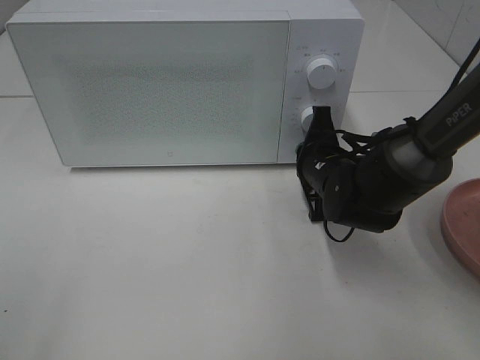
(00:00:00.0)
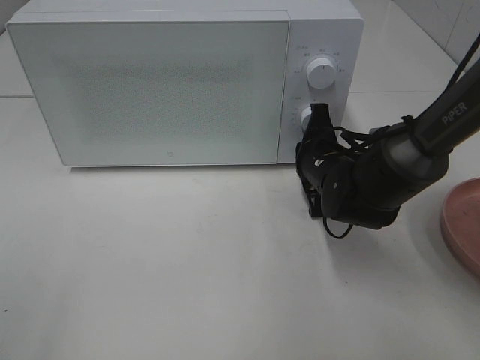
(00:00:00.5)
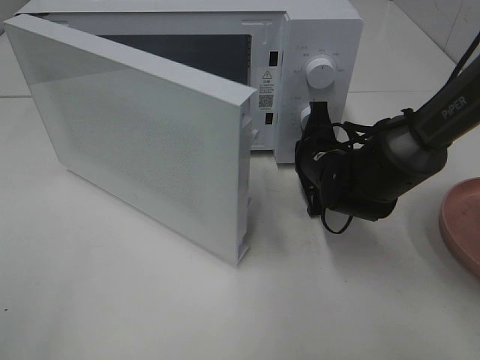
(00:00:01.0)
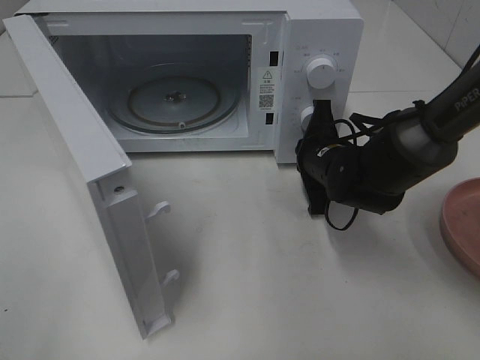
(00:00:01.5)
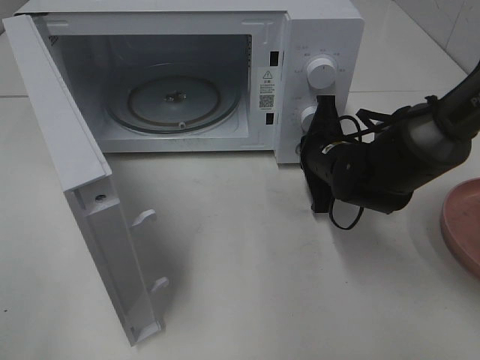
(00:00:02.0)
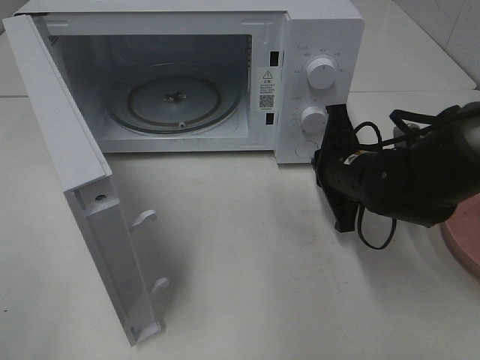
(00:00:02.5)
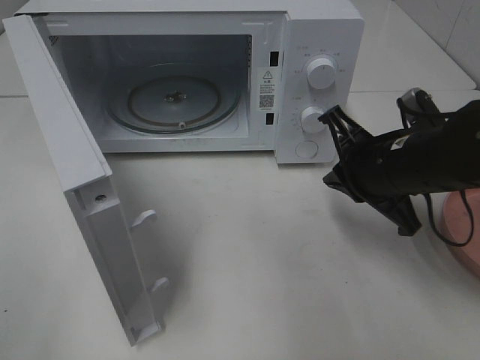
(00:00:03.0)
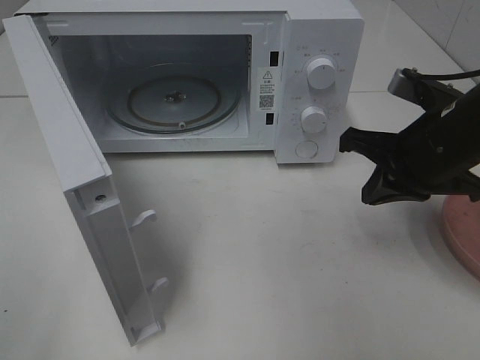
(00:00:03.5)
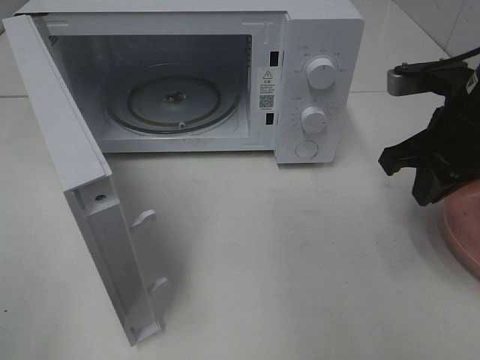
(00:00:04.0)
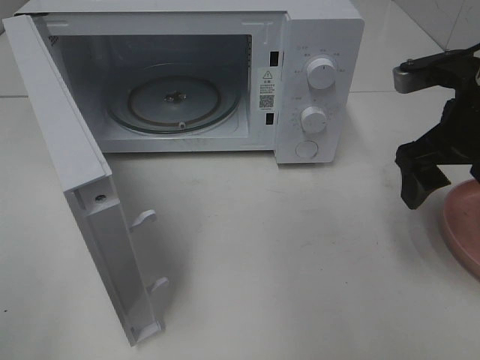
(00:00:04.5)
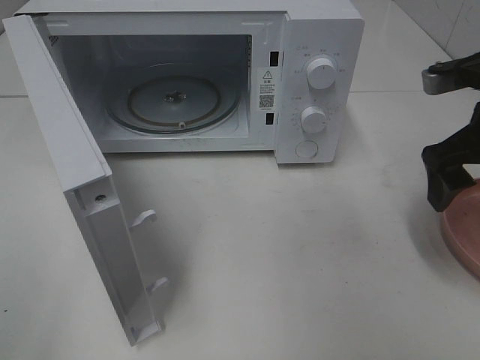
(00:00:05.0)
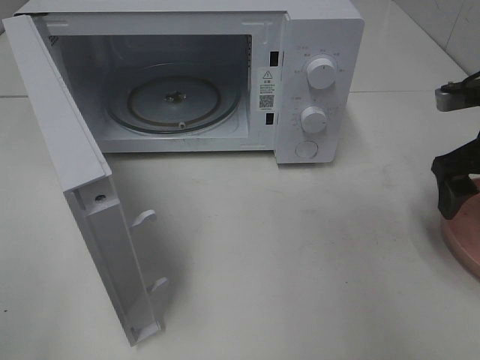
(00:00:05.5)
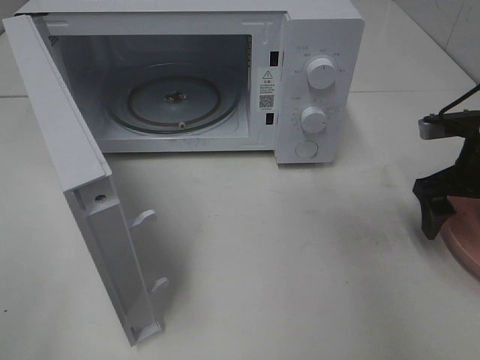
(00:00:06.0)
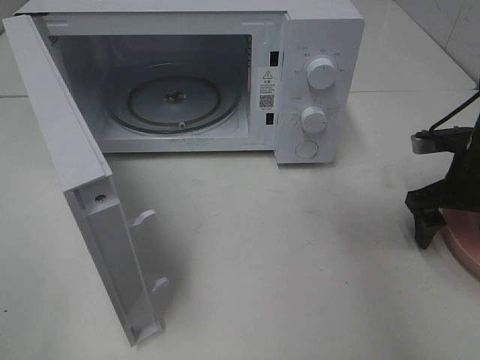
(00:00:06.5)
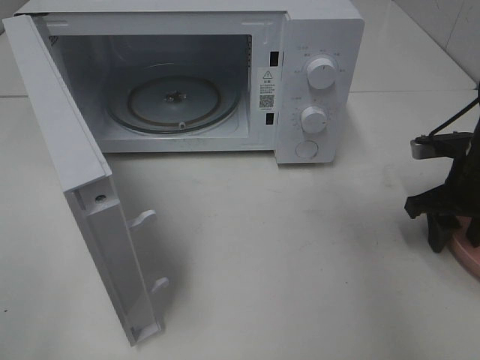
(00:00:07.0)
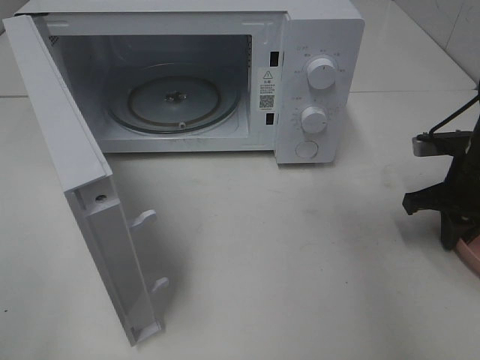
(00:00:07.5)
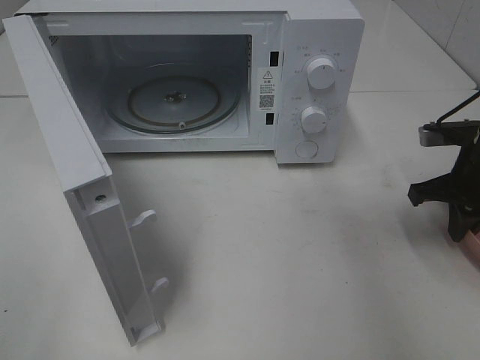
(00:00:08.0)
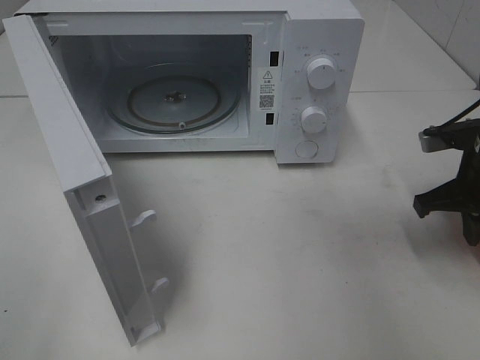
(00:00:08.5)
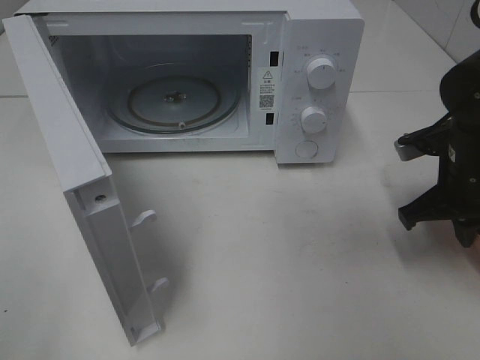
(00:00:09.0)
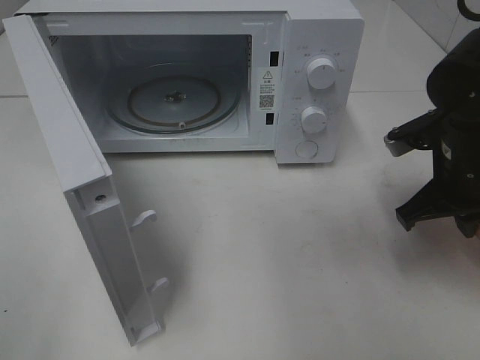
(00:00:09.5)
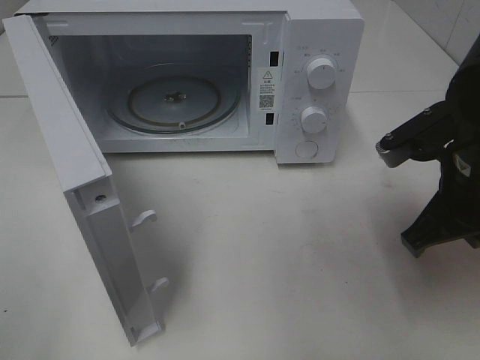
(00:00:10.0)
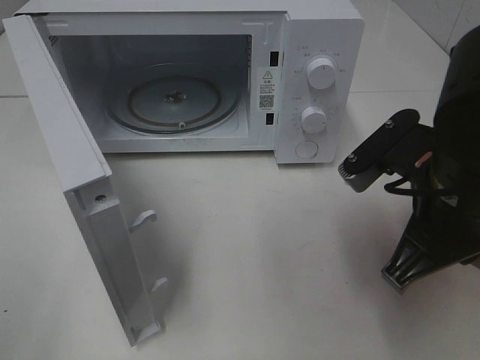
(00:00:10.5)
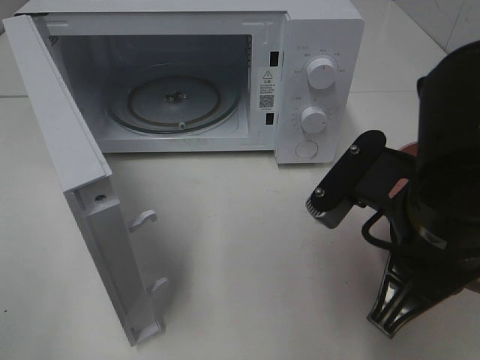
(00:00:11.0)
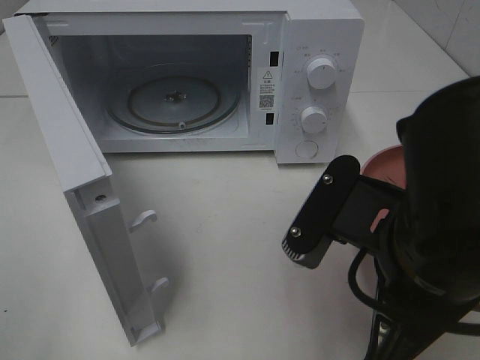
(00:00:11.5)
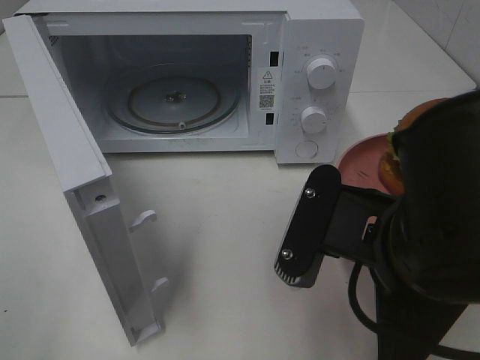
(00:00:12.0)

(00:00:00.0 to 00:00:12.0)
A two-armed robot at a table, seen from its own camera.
Task of the whole recording: Heat the burger.
Step, 00:00:00.0 - 00:00:02.5: Right hand: press the switch.
Step, 00:00:03.0 - 00:00:08.5: Right hand: grab the plate with the hamburger.
00:00:02.0 - 00:00:04.0: The right gripper is displaced upward, to the right and backward by about 15 cm.
00:00:04.0 - 00:00:06.0: The right gripper goes approximately 10 cm downward and to the right, and opens.
00:00:06.0 - 00:00:08.0: The right gripper closes its fingers.
00:00:08.0 - 00:00:10.0: The right gripper is displaced to the left, backward and upward by roughly 15 cm.
00:00:10.0 - 00:00:12.0: The right gripper heads backward and to the left, covering about 15 cm.

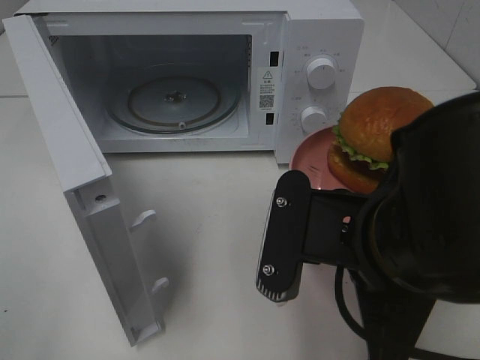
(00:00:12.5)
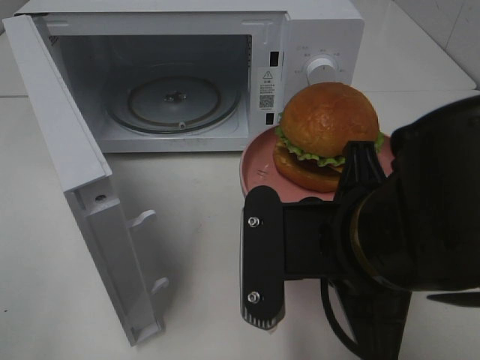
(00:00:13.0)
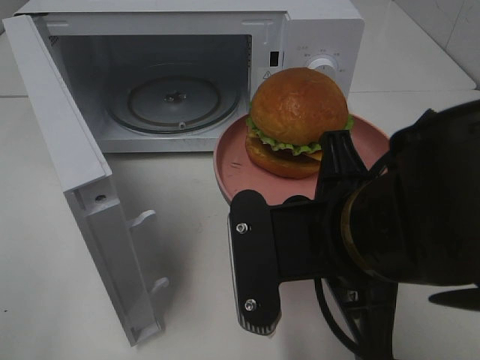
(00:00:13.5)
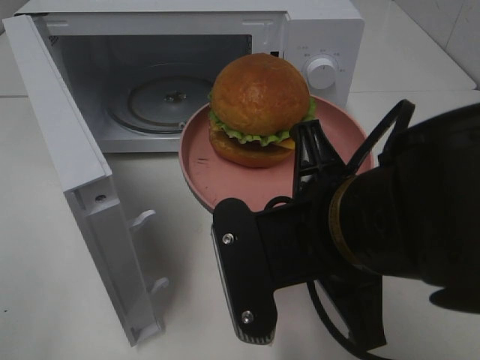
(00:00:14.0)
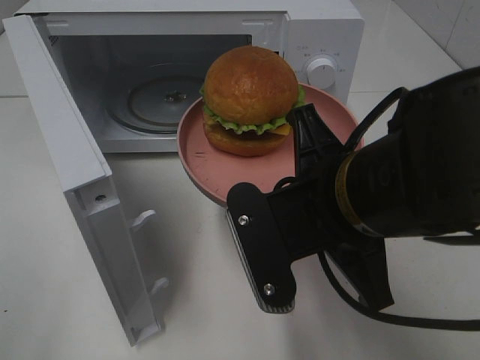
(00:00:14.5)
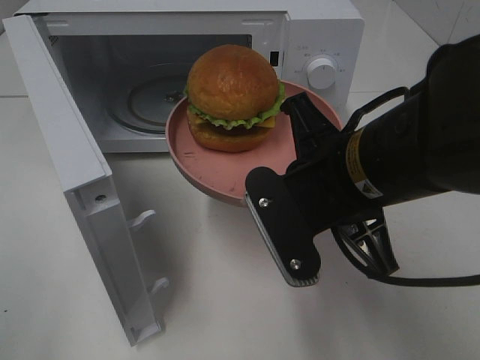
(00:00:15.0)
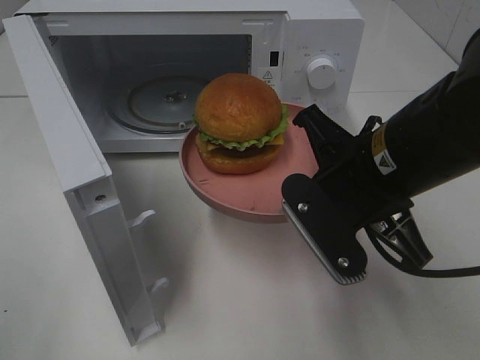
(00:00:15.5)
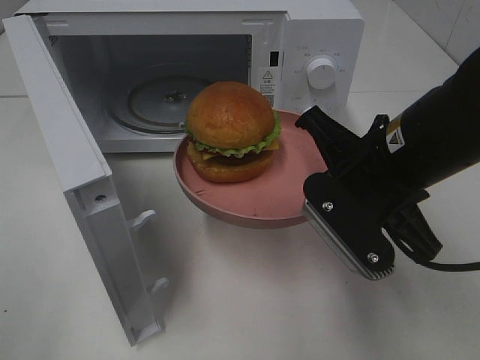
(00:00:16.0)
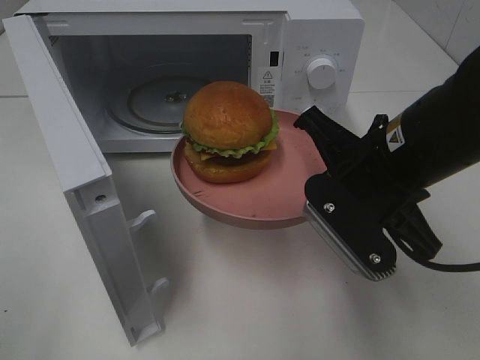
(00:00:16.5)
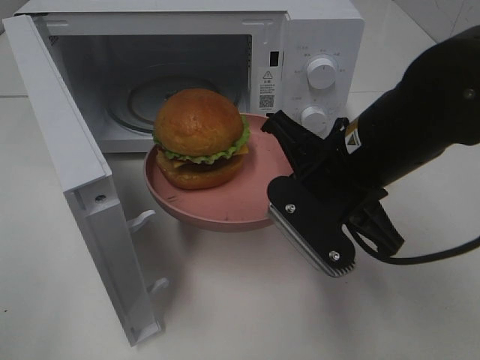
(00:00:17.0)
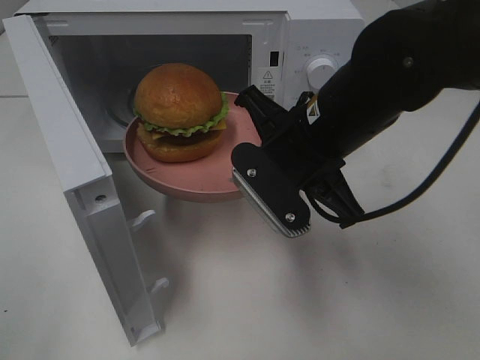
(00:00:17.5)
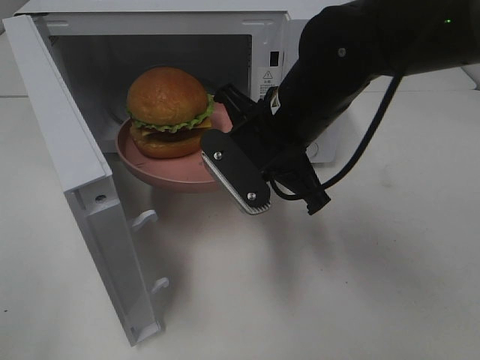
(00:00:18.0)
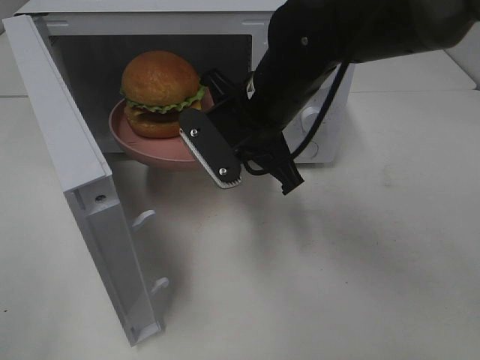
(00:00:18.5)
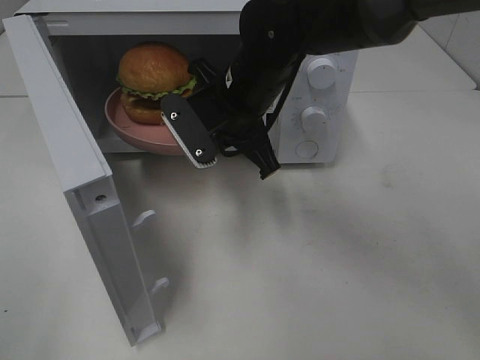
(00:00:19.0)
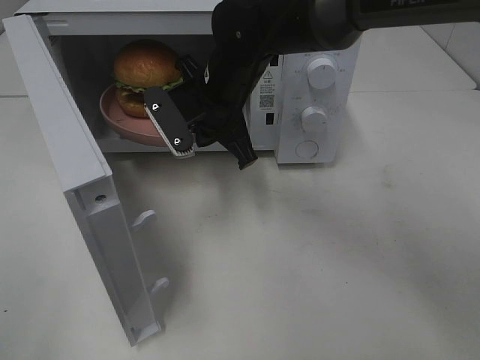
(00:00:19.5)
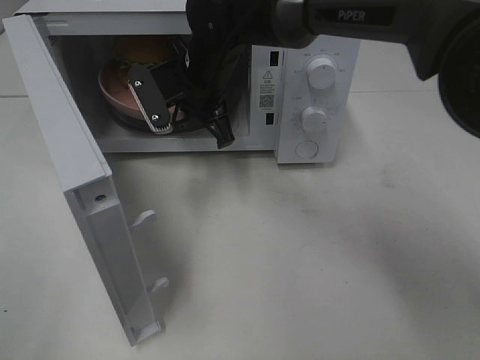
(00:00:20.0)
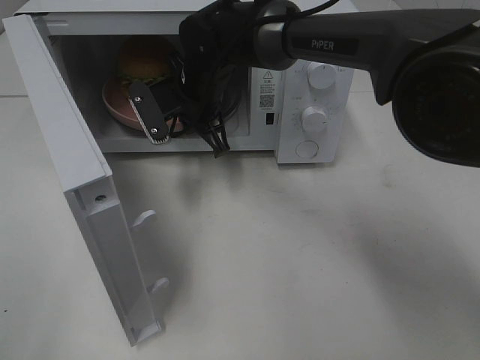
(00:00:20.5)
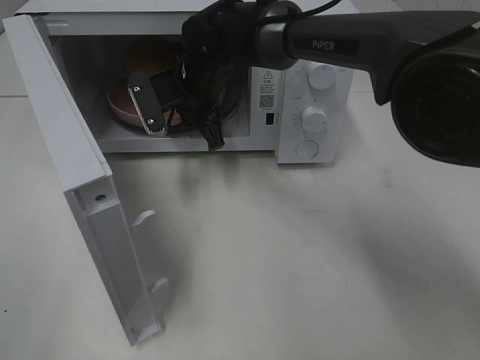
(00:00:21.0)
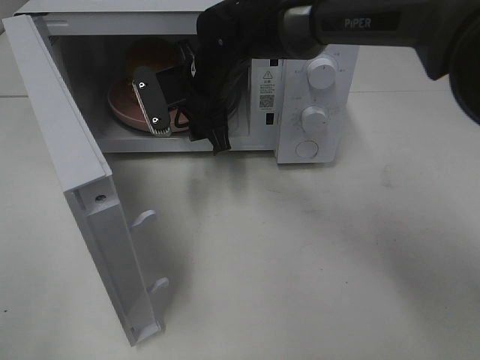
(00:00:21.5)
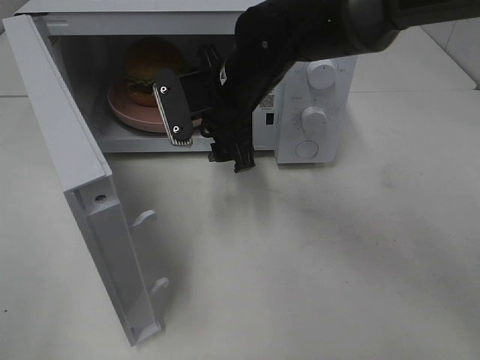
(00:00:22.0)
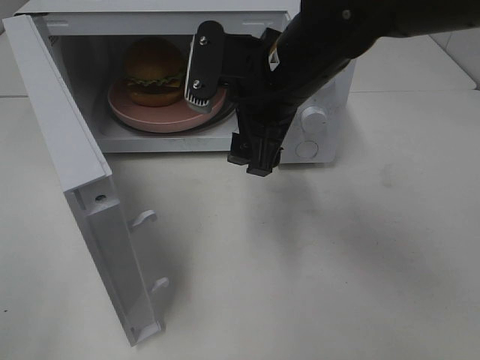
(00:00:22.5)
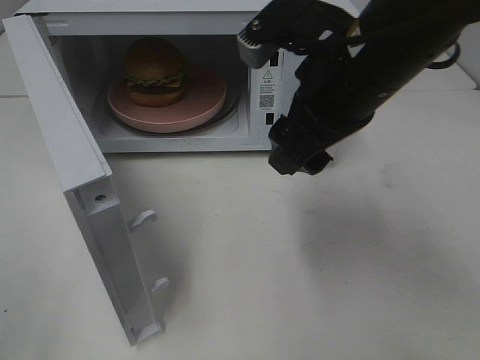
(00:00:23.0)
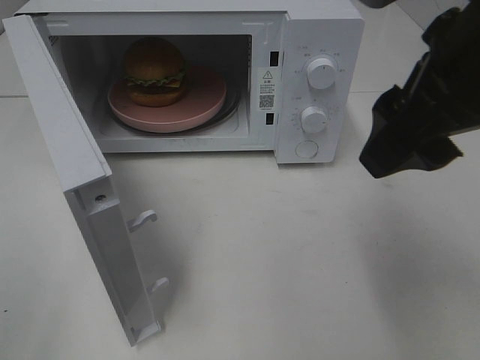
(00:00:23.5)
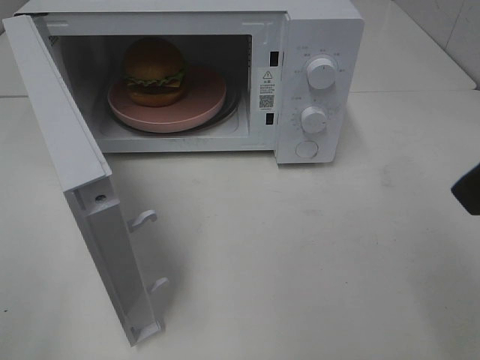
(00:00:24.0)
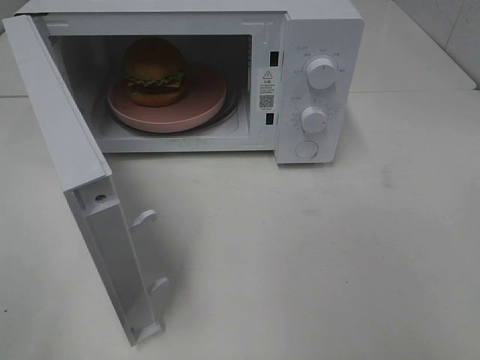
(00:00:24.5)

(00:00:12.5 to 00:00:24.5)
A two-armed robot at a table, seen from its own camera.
Task of the whole recording: Heat the burger.
Step, 00:00:12.5 - 00:00:21.5: Right hand: place the plate in the microwave.
00:00:14.5 - 00:00:16.5: The right gripper is displaced forward and to the right by approximately 10 cm.
00:00:16.5 - 00:00:18.5: The right gripper is displaced to the left and forward by about 15 cm.
00:00:18.5 - 00:00:20.5: The right gripper is displaced forward and to the left by roughly 15 cm.
00:00:20.5 - 00:00:22.5: The right gripper travels backward, to the right and upward by about 15 cm, and opens.
00:00:22.5 - 00:00:24.5: The right gripper is displaced backward, to the right and upward by roughly 30 cm.

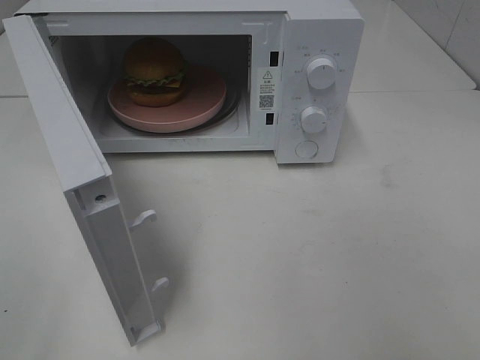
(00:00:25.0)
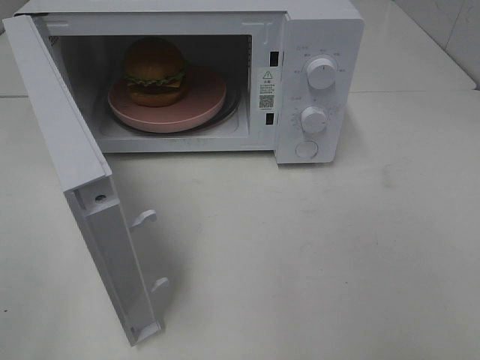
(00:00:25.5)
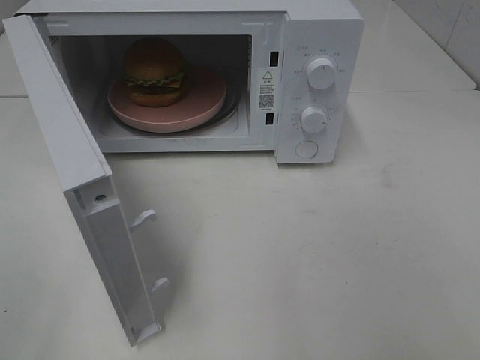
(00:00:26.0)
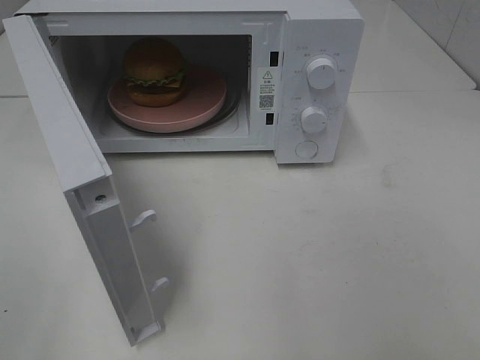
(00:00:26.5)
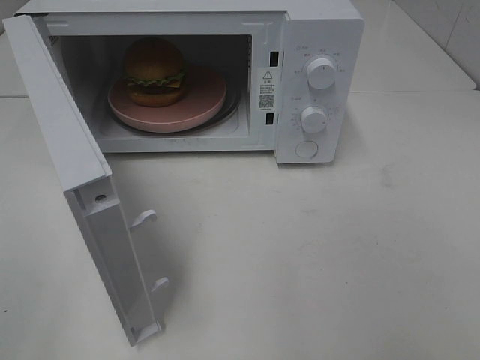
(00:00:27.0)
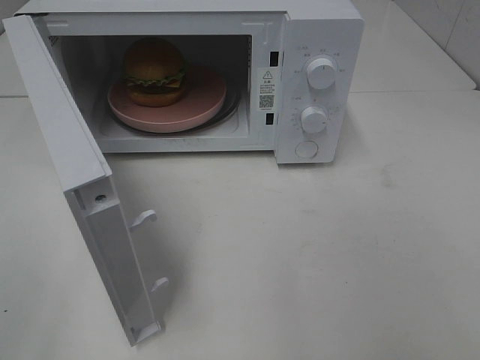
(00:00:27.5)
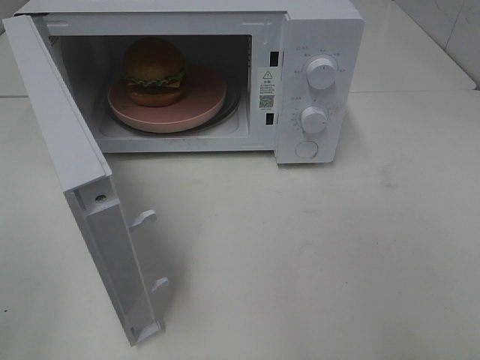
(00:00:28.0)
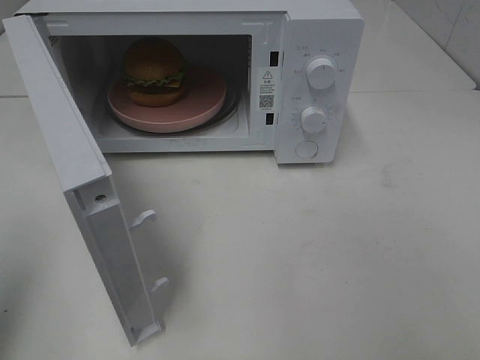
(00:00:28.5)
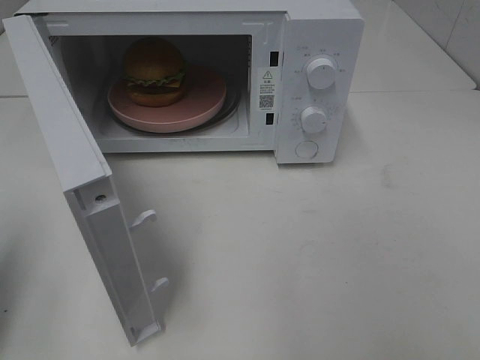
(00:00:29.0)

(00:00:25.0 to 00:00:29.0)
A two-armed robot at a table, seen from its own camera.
Task of the whole recording: Heat the burger.
00:00:27.0 - 00:00:29.0: The left gripper shifts approximately 15 cm forward, and closes its fingers.
